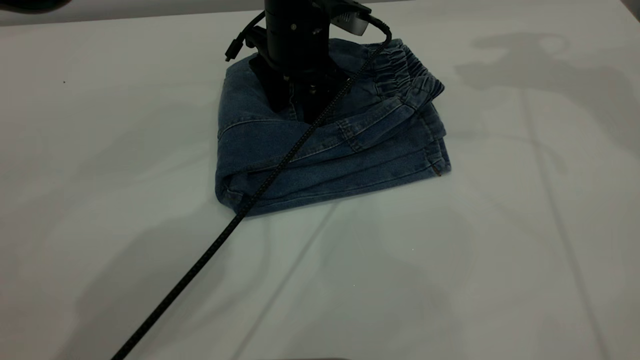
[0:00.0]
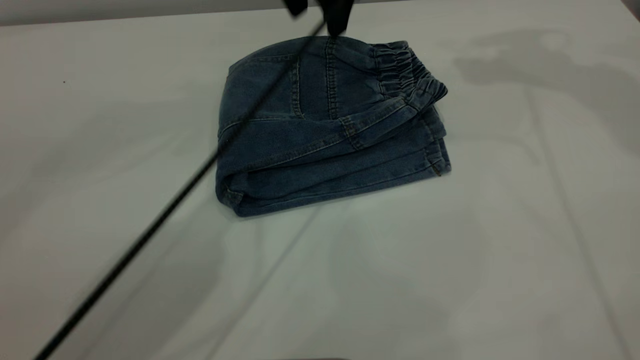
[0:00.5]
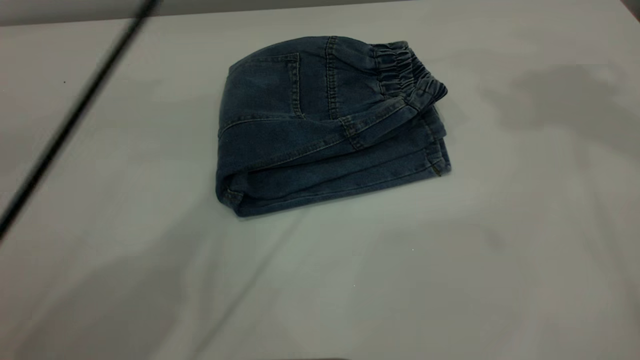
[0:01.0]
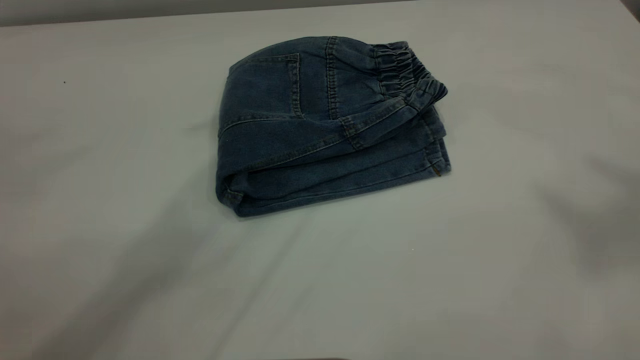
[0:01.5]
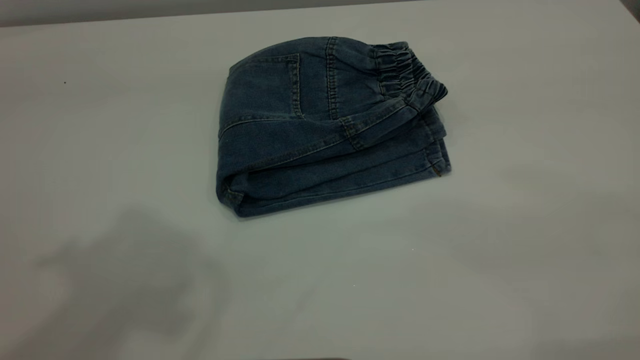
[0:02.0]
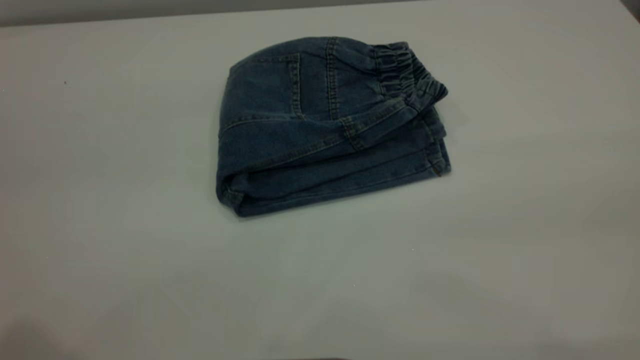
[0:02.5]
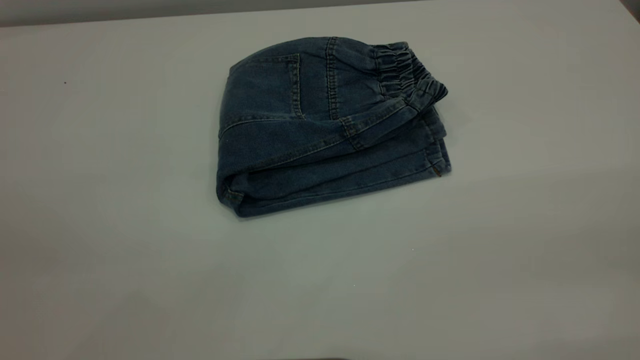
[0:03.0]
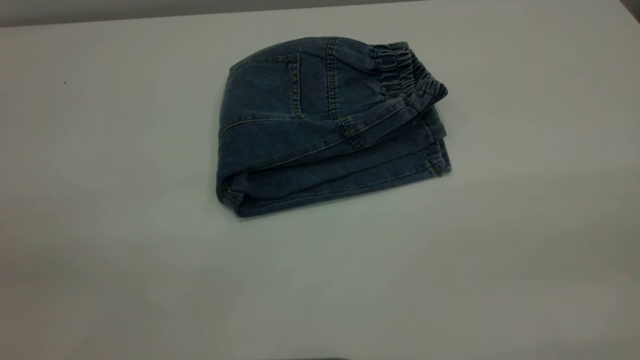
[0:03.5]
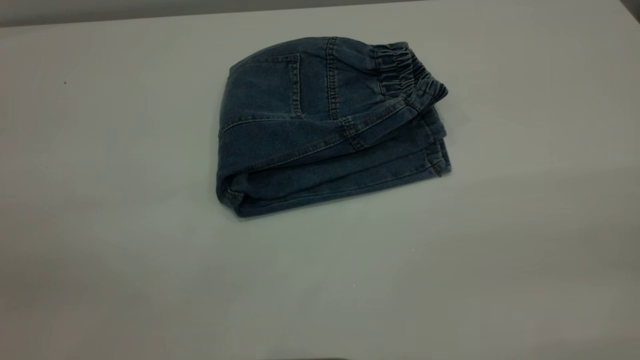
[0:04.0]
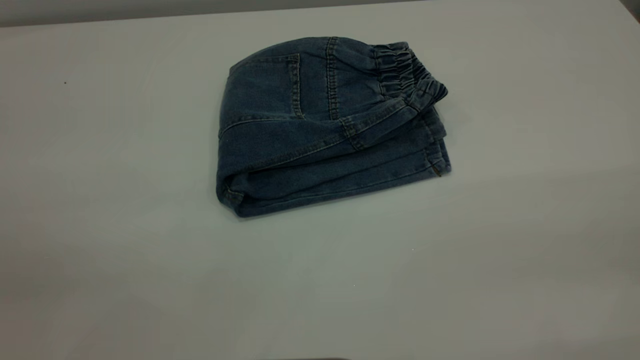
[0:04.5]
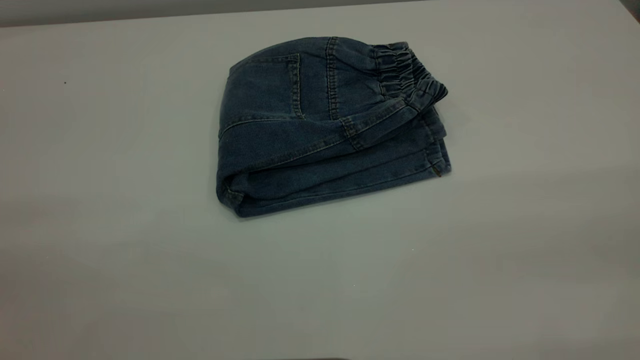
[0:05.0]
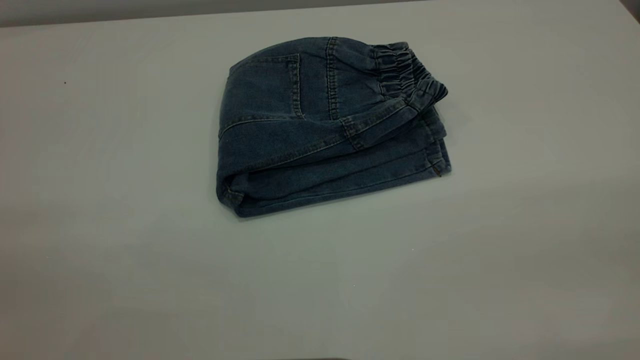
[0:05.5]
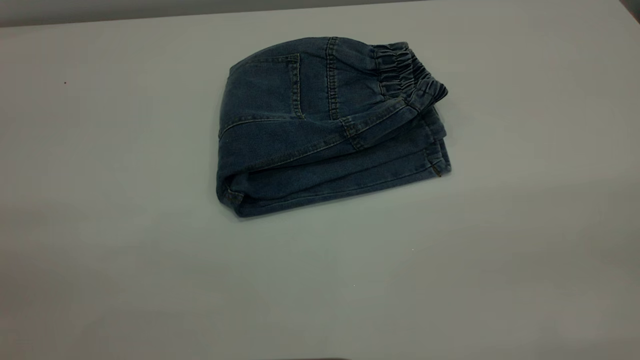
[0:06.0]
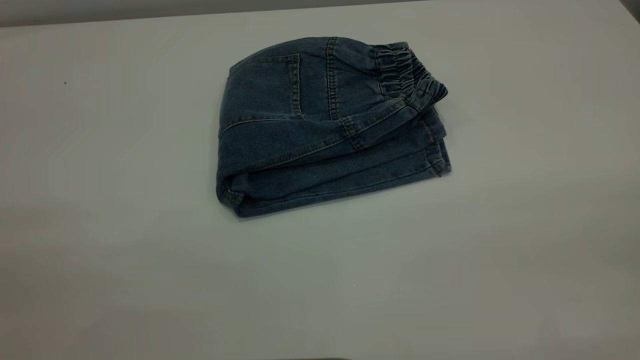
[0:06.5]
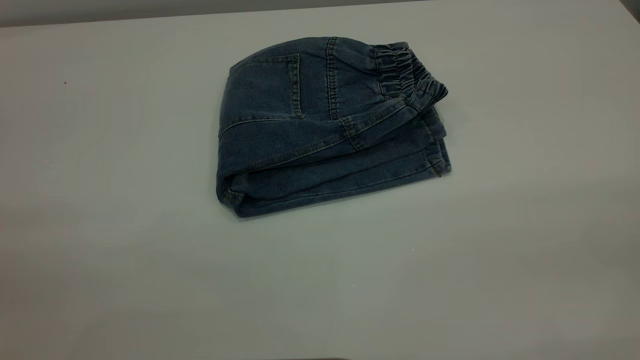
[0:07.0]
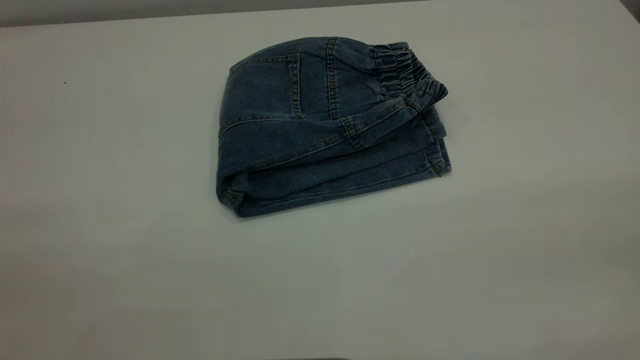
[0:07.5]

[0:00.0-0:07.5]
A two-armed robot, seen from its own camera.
0:00.0 to 0:02.0: The right gripper is displaced backward and upward by roughly 50 cm; the left gripper is displaced upward, backward and to the left by some 50 cm.

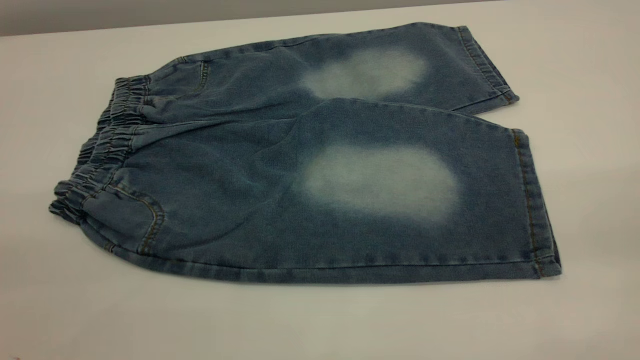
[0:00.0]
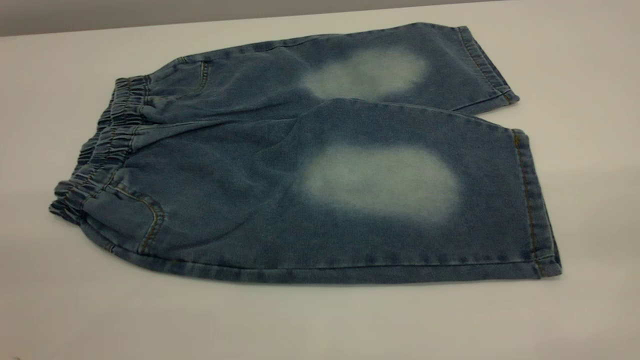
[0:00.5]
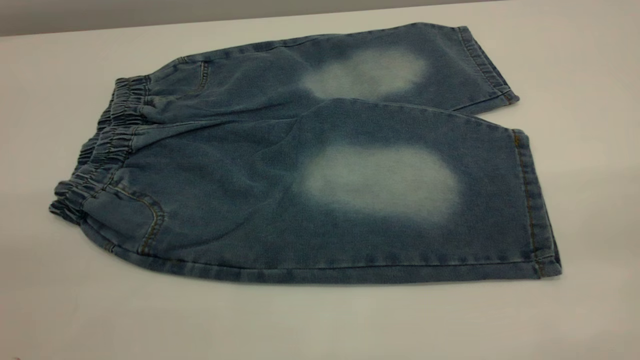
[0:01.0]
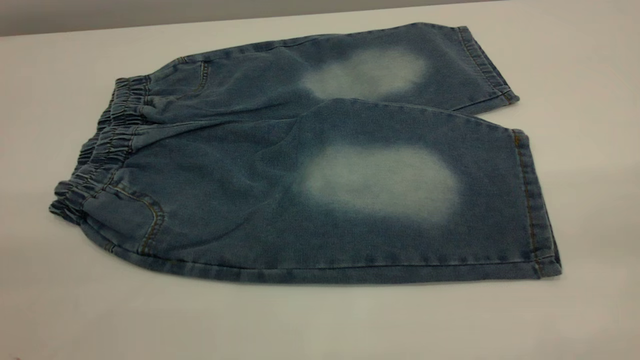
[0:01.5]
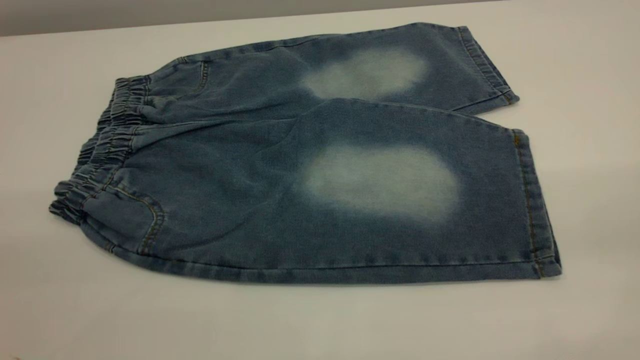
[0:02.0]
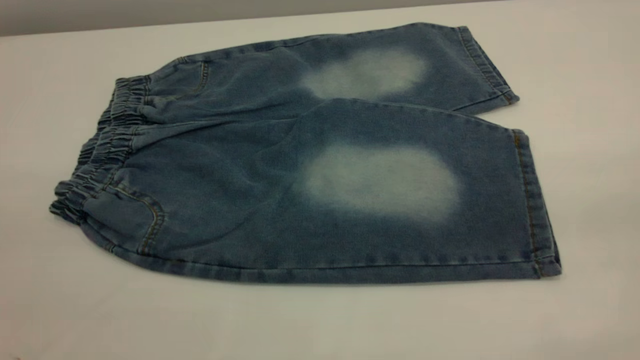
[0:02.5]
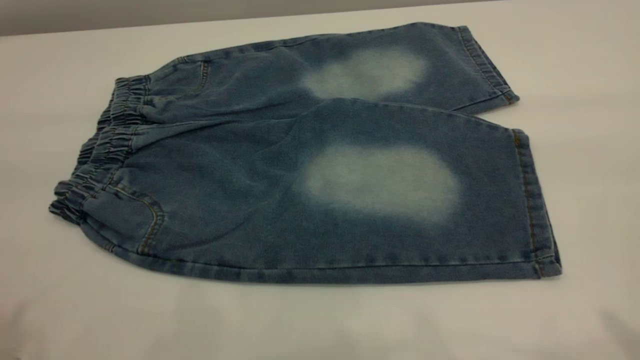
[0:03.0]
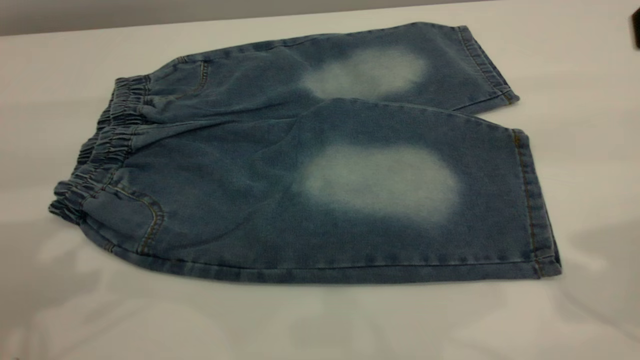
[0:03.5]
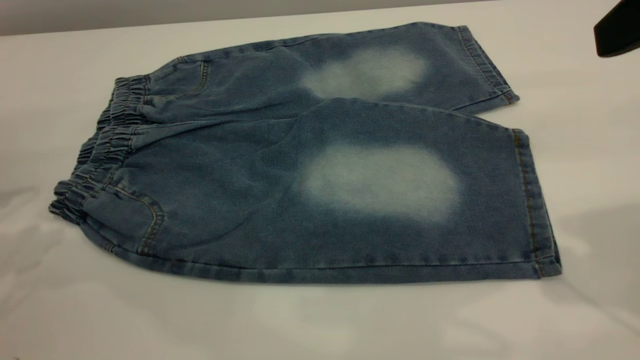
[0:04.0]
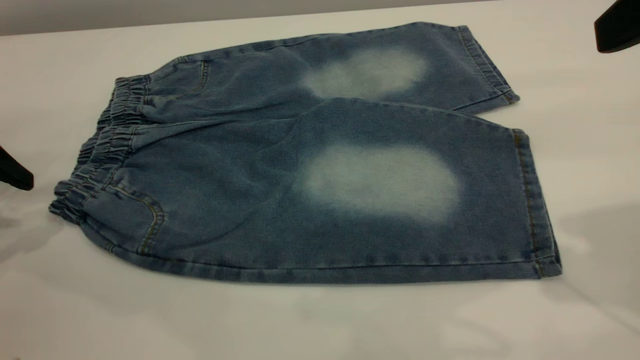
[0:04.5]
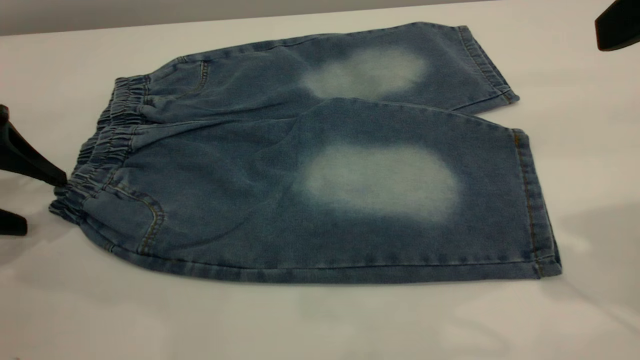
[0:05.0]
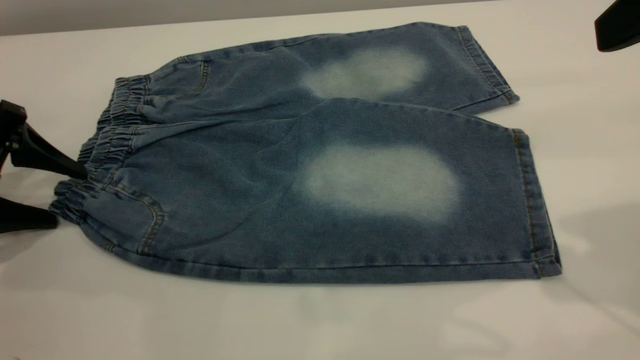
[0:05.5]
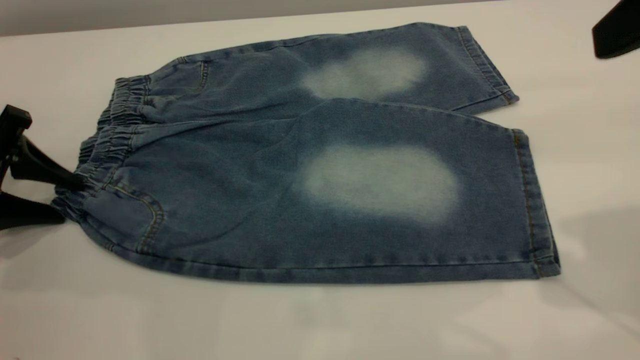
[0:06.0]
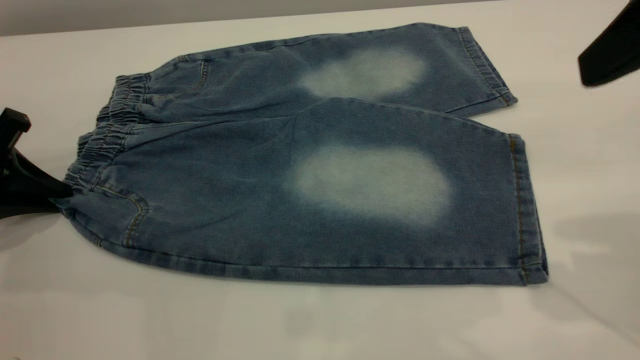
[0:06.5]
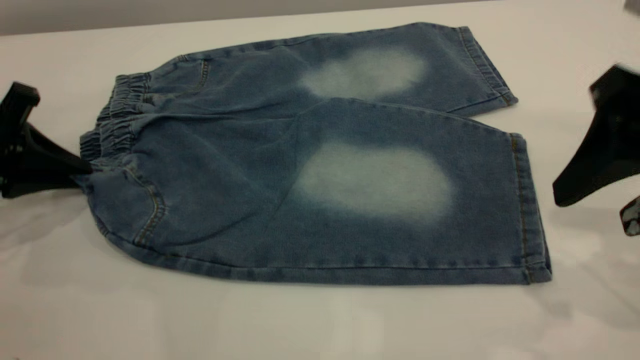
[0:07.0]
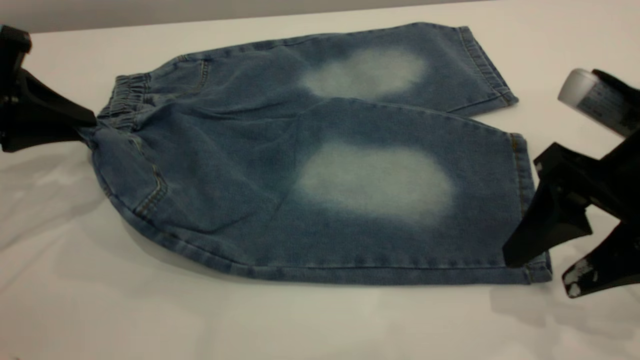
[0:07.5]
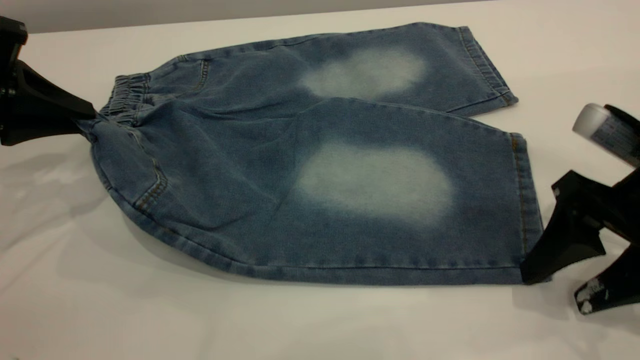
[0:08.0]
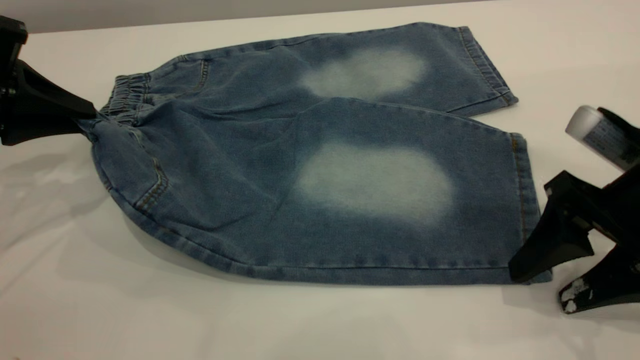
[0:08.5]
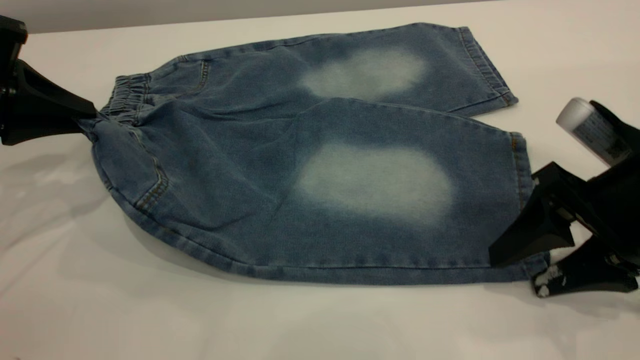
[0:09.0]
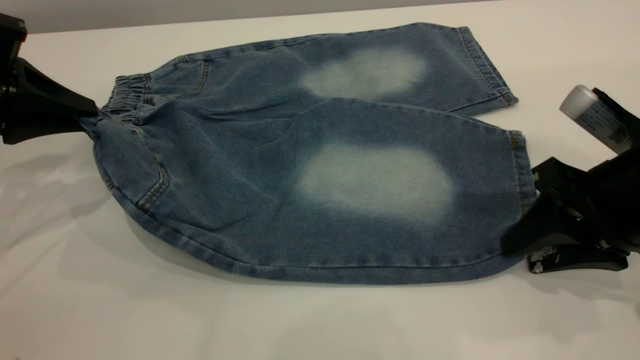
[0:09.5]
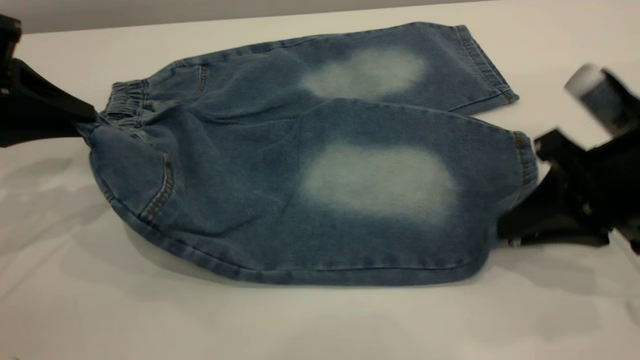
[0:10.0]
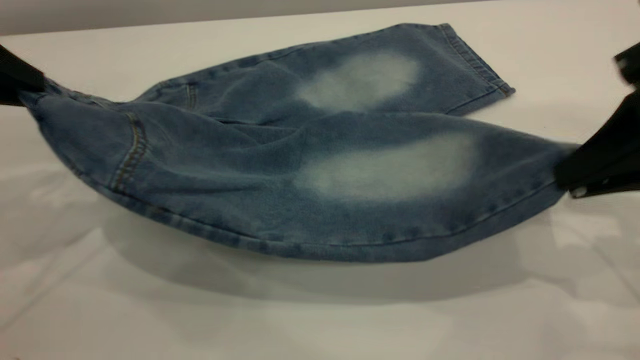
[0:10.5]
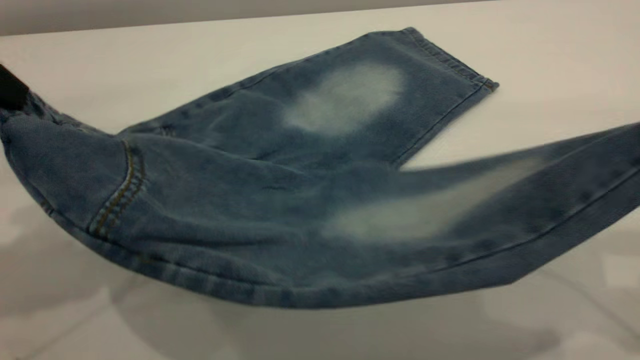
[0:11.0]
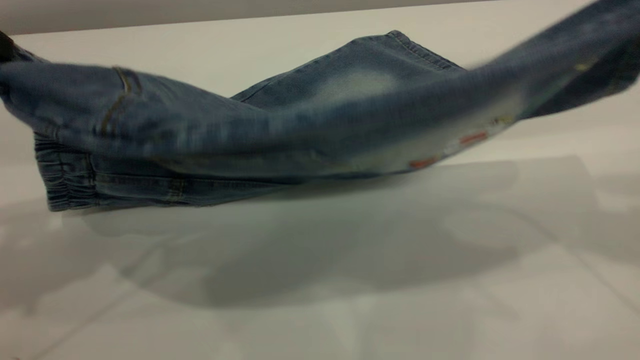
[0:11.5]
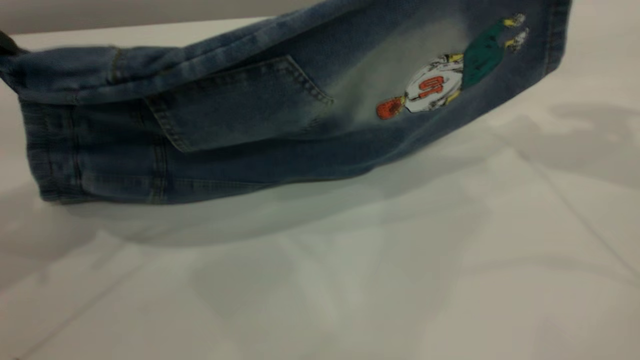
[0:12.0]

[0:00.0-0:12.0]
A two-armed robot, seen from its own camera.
0:02.0 to 0:04.0: The right gripper is displaced forward by approximately 20 cm.
0:04.0 to 0:06.0: The left gripper is displaced downward by roughly 10 cm.
0:06.0 to 0:08.0: The left gripper heads upward, covering approximately 5 cm, and closes. The right gripper shifts about 20 cm downward.
0:08.0 to 0:10.0: The right gripper closes its fingers.
0:10.0 to 0:12.0: The right gripper is displaced upward and forward by some 20 cm. Meanwhile the left gripper is displaced upward by about 10 cm.

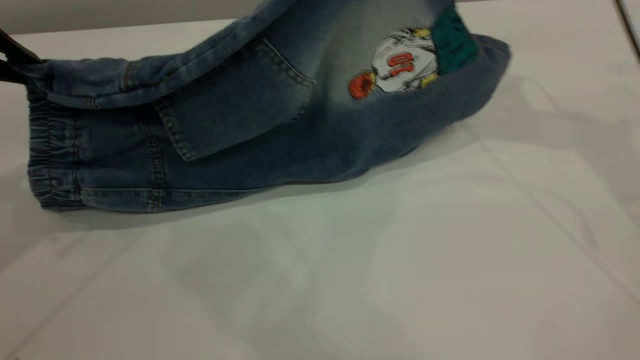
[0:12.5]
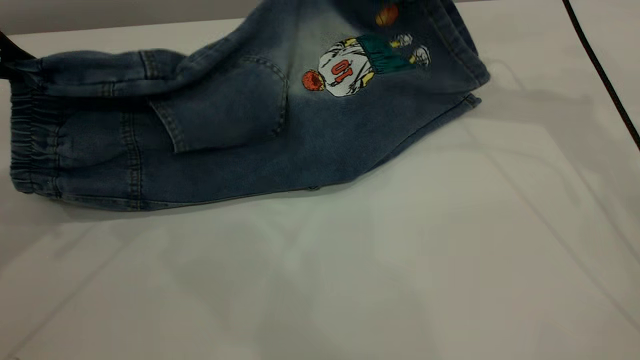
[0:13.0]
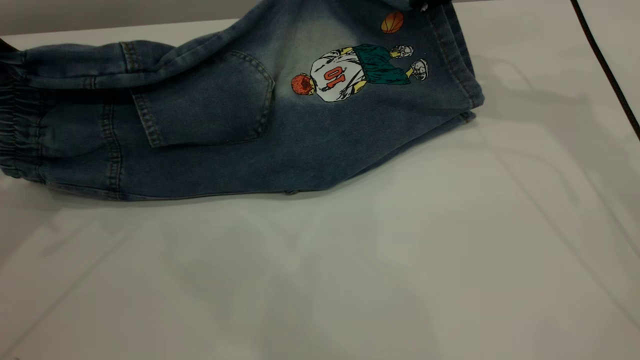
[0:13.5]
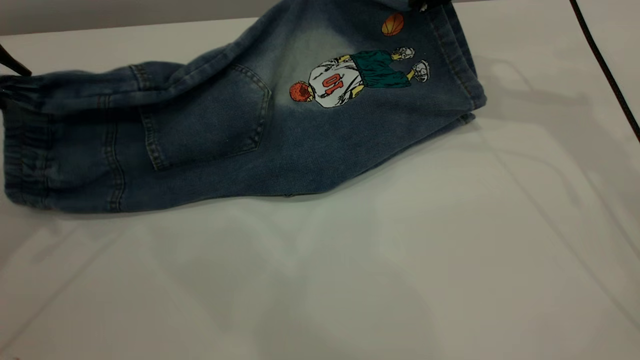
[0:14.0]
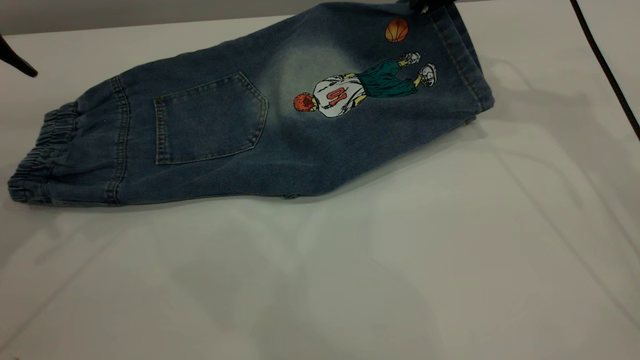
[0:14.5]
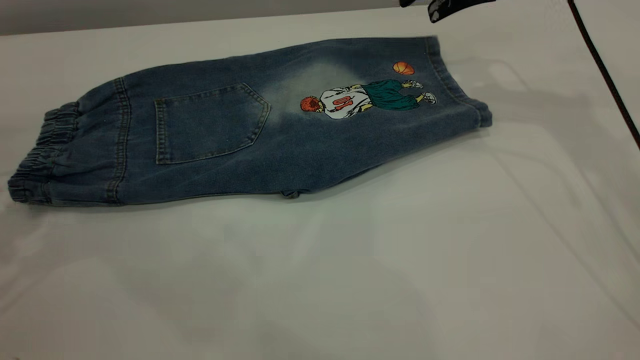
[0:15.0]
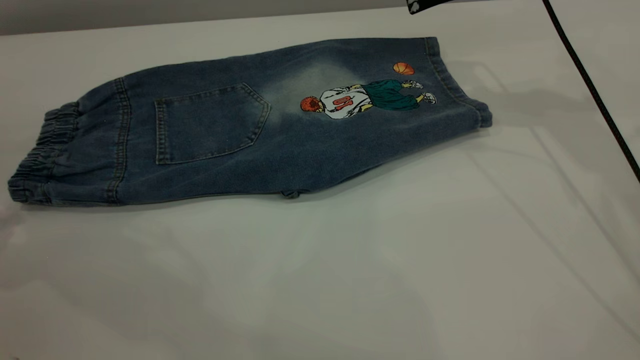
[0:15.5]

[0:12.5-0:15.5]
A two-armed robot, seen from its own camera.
Step, 0:12.5 to 0:15.0: Fold the bottom of the pants upward.
0:12.5 to 0:14.0: The left gripper opens up.
0:14.0 to 0:15.5: The right gripper opens. The left gripper is displaced to the left by roughly 5 cm.
